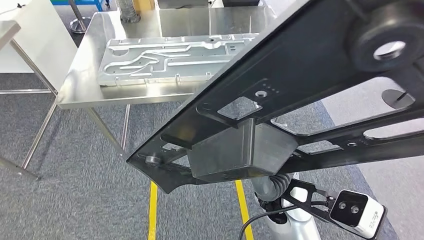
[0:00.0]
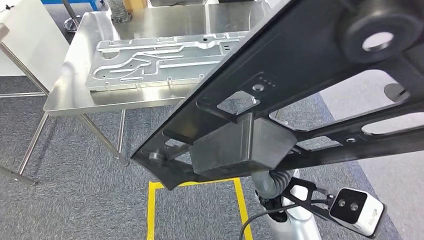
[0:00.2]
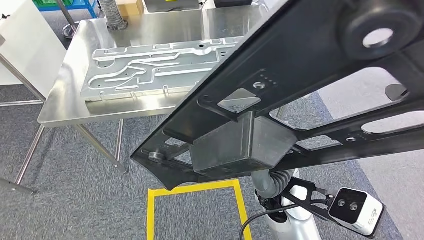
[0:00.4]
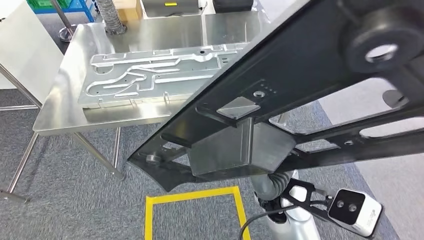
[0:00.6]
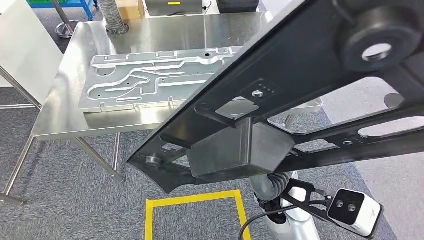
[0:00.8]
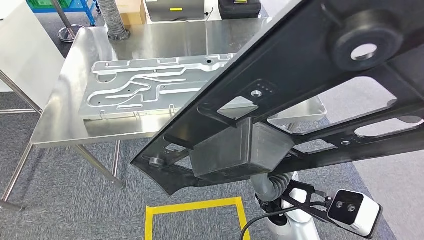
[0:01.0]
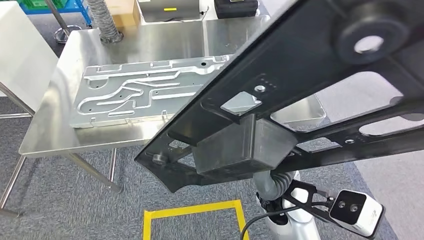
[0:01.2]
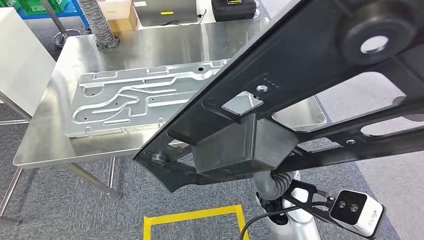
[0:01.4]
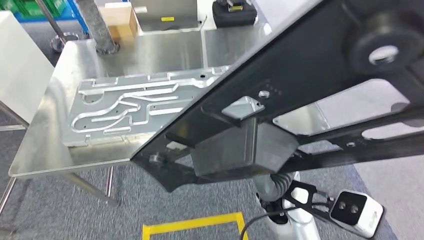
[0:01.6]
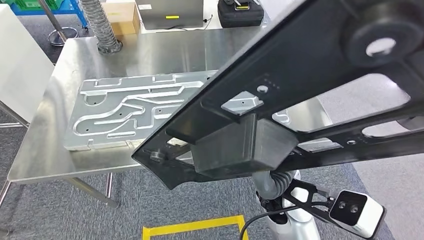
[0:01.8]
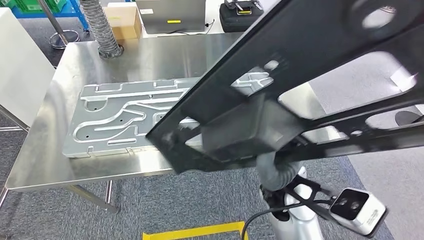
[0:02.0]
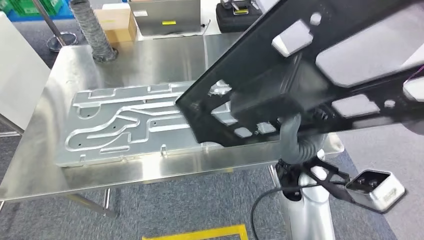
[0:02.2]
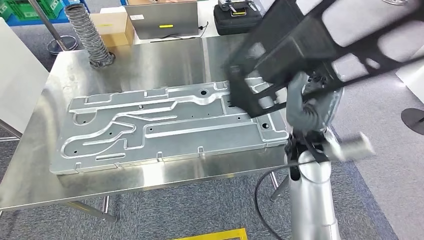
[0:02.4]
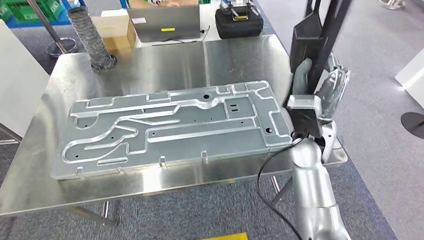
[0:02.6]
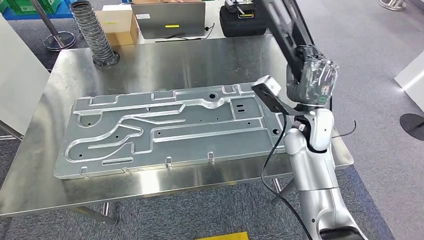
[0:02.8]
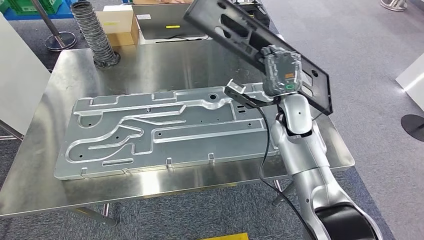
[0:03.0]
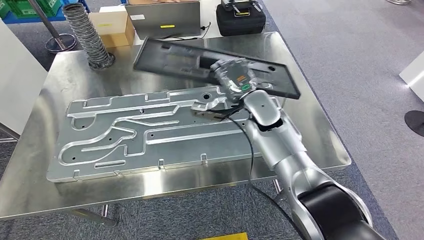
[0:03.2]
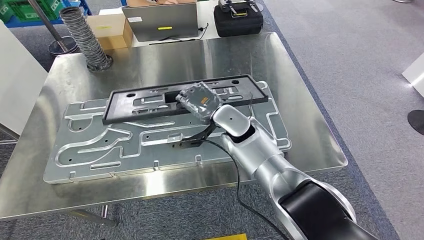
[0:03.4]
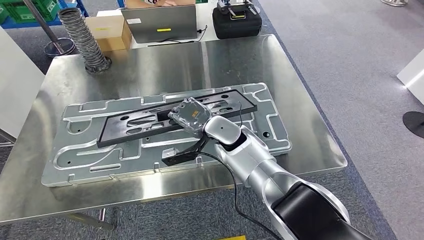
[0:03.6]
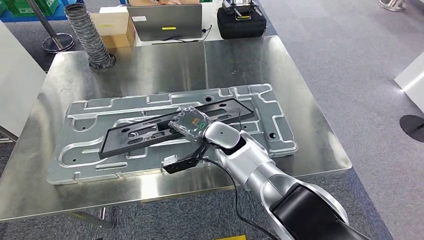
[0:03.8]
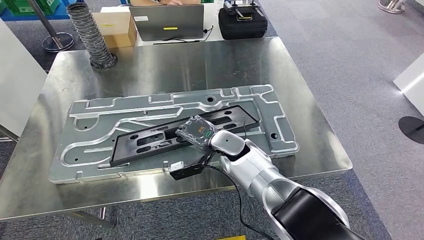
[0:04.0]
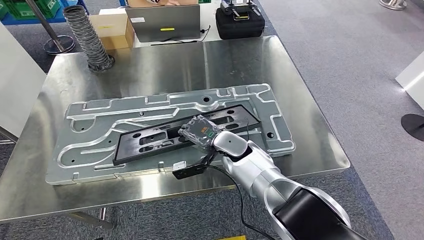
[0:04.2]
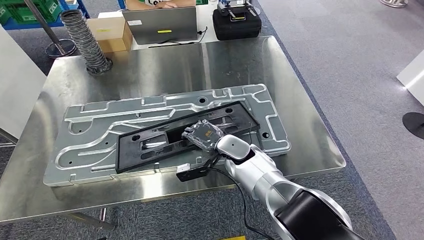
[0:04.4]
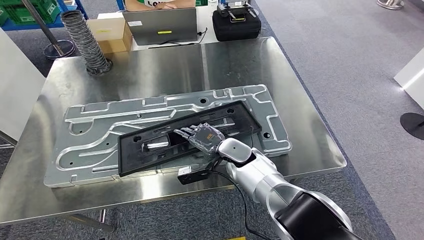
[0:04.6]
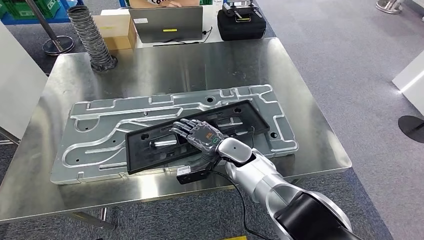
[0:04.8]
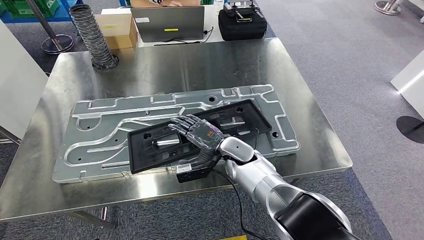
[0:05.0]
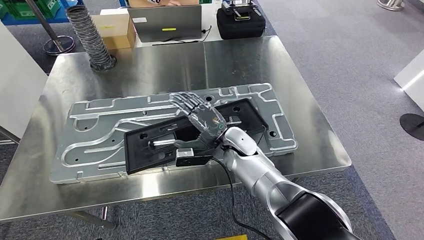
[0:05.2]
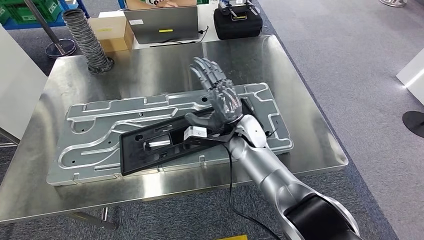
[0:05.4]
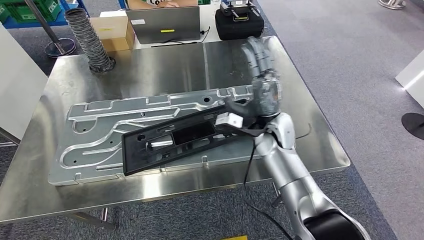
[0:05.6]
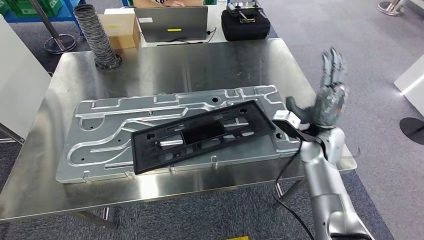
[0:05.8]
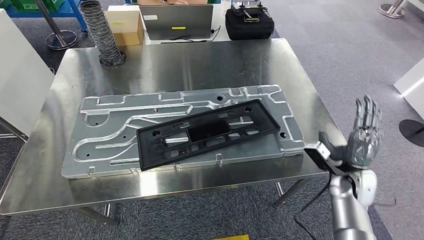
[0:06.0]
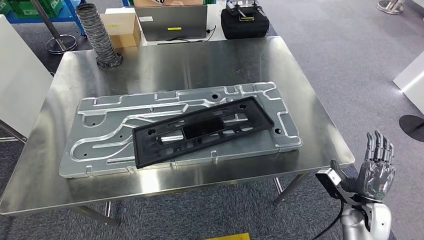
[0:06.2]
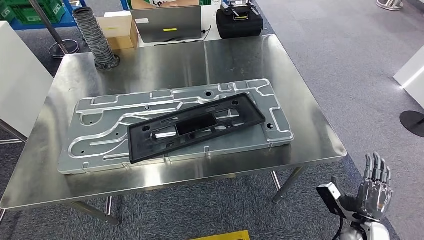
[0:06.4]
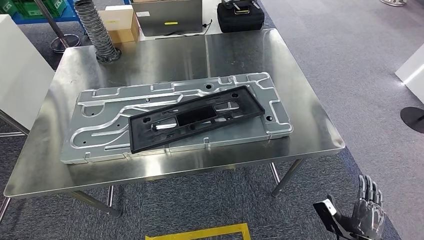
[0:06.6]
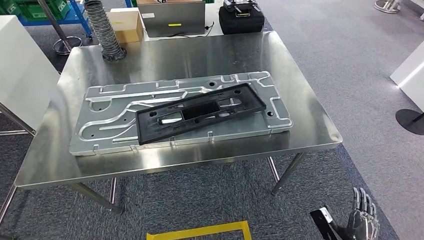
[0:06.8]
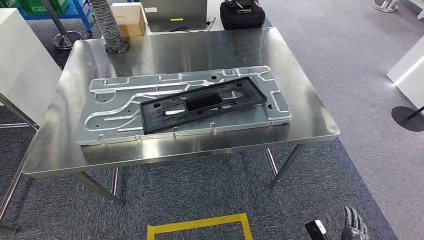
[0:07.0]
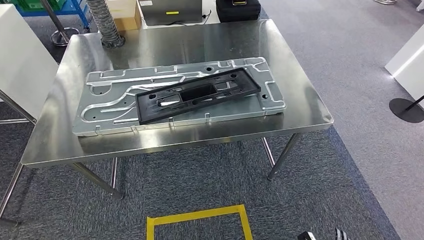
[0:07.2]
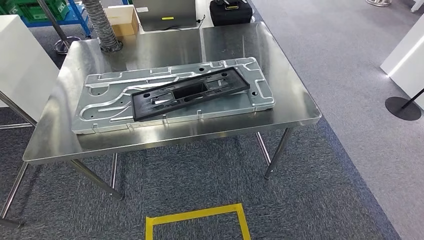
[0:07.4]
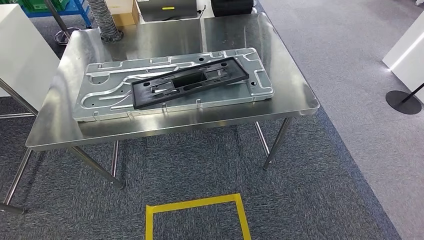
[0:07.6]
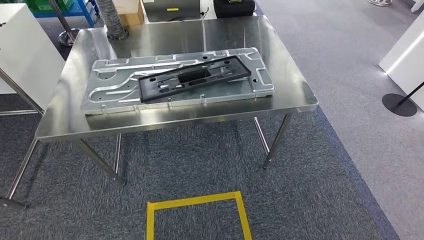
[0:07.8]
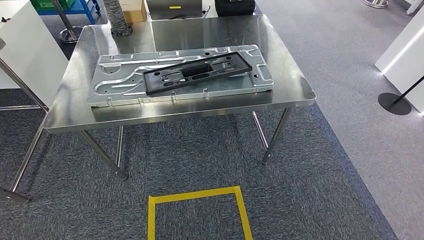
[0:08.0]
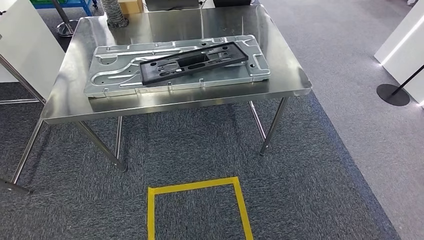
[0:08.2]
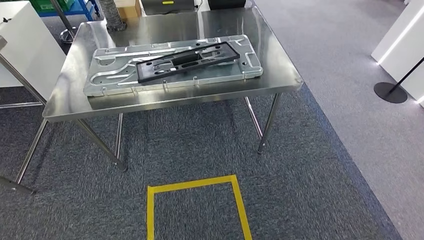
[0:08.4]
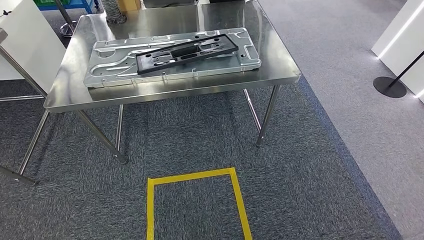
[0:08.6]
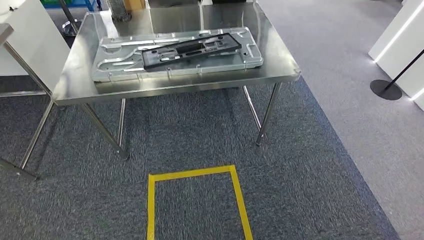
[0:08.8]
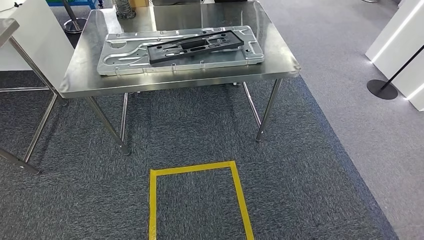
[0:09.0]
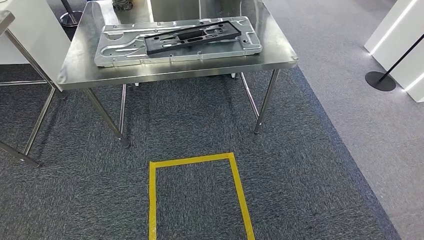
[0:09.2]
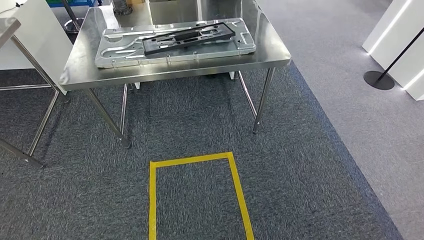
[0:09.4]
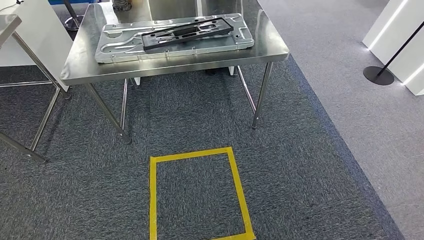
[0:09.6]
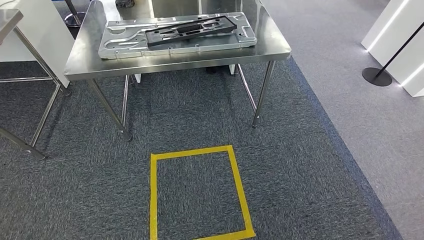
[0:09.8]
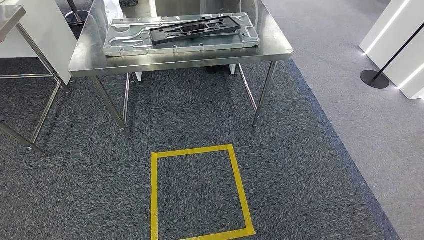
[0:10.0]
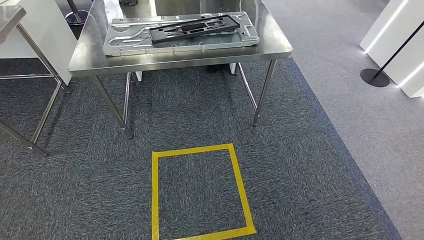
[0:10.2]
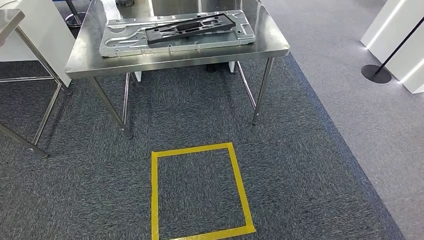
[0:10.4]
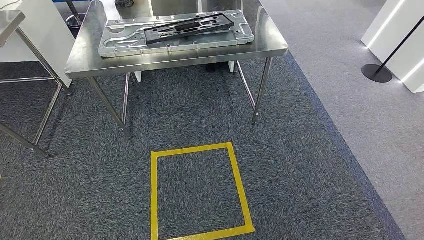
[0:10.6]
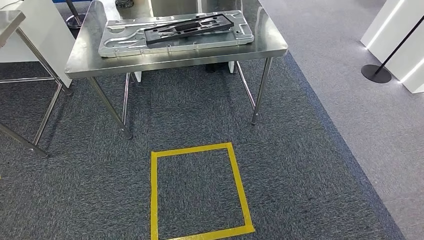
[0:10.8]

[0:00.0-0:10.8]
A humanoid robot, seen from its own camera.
Step, 0:00.0 to 0:02.8: Move the large material to the workbench.
Step, 0:03.2 to 0:06.6: Insert the large material into the corresponding slot on the workbench.
Step, 0:08.0 to 0:10.8: Move to the initial position of the shelf.
